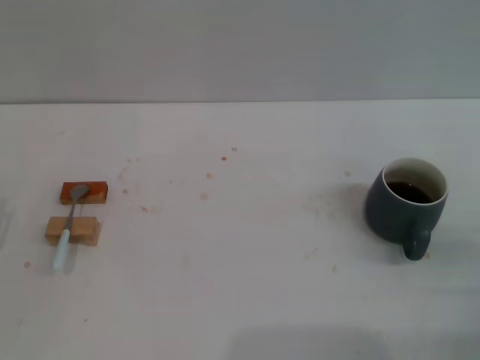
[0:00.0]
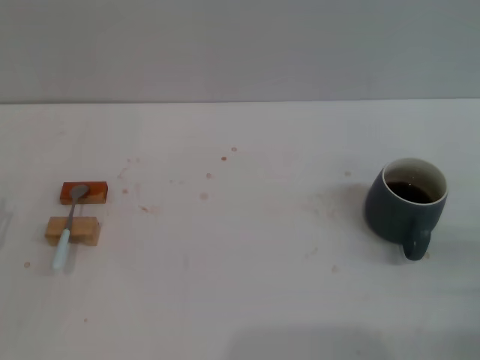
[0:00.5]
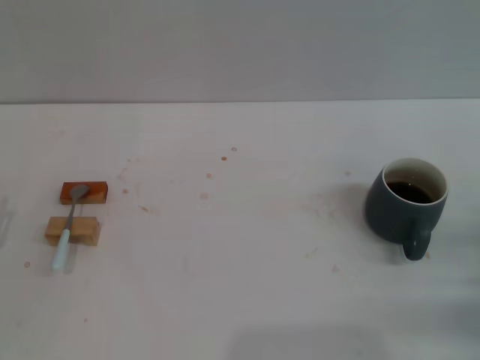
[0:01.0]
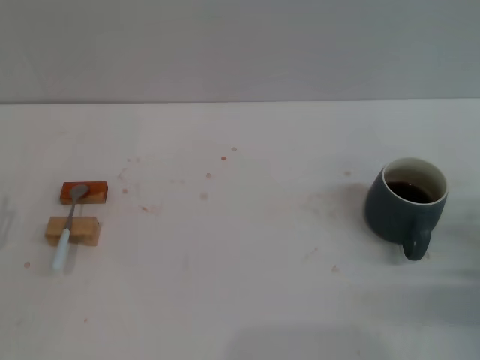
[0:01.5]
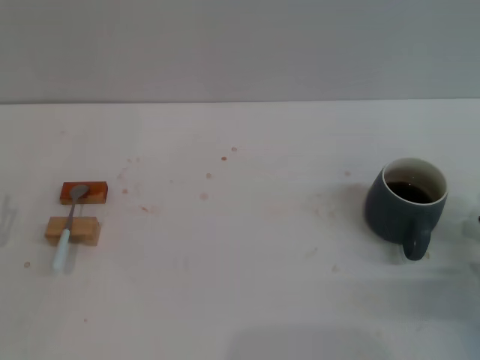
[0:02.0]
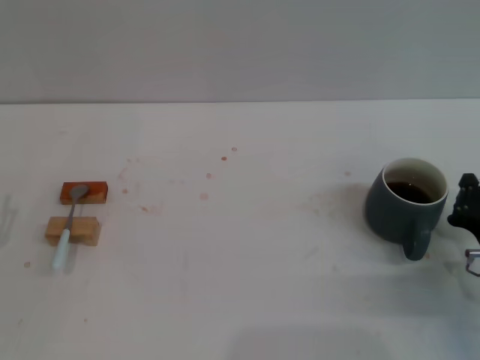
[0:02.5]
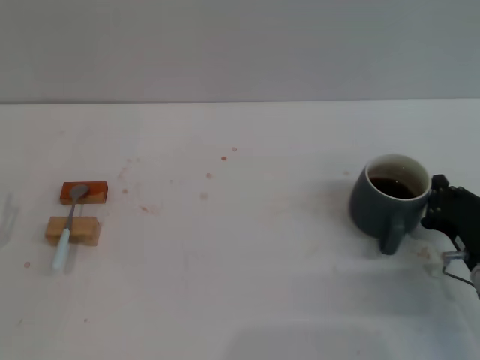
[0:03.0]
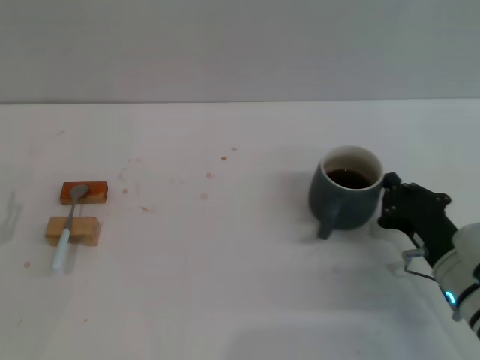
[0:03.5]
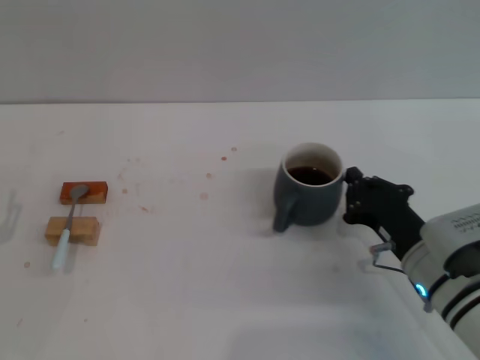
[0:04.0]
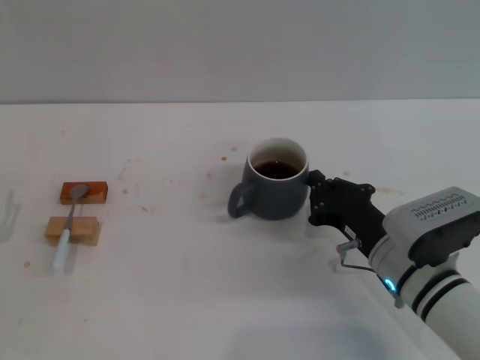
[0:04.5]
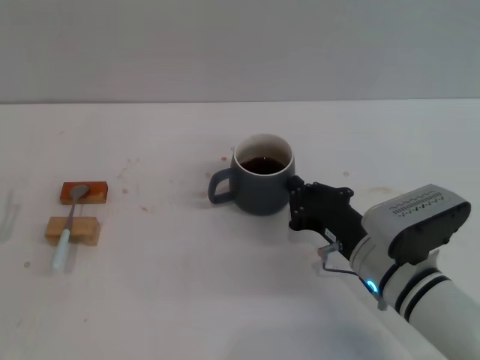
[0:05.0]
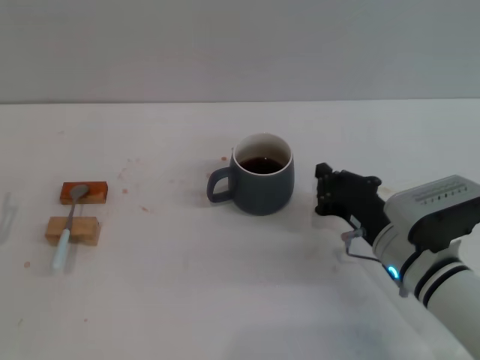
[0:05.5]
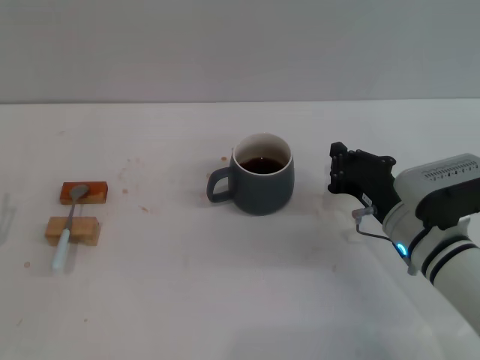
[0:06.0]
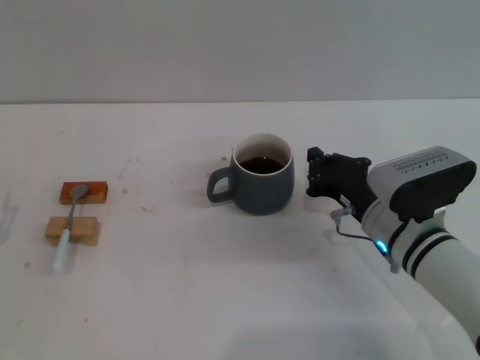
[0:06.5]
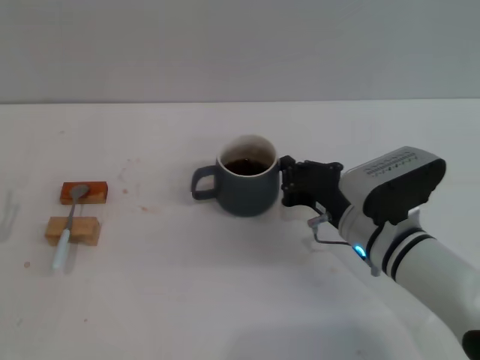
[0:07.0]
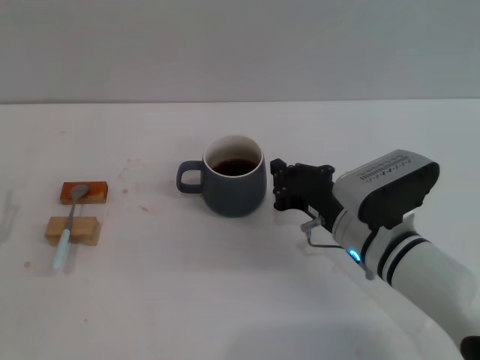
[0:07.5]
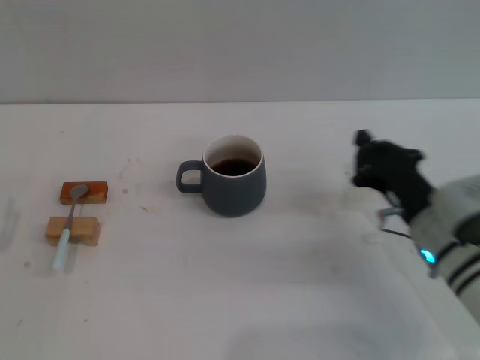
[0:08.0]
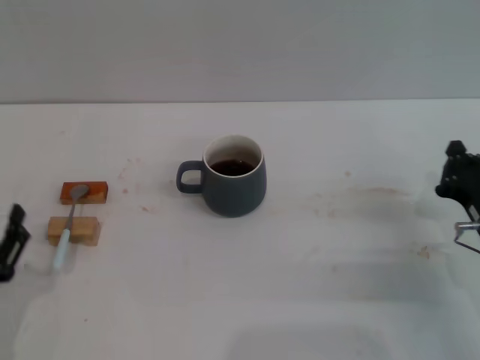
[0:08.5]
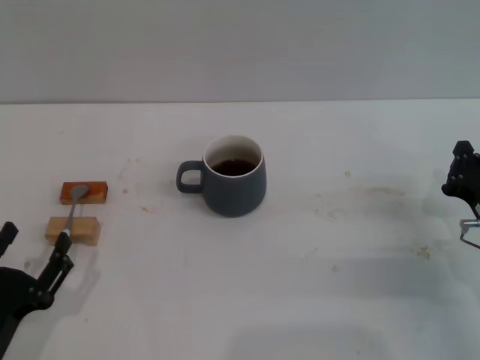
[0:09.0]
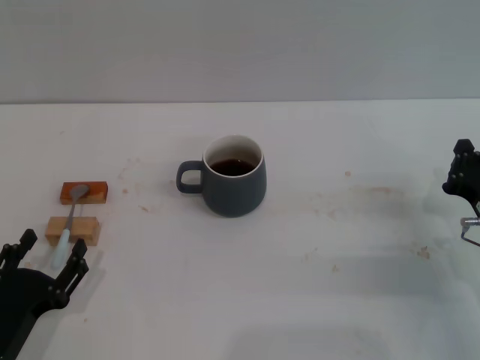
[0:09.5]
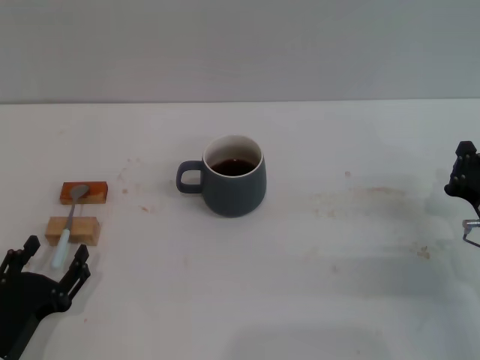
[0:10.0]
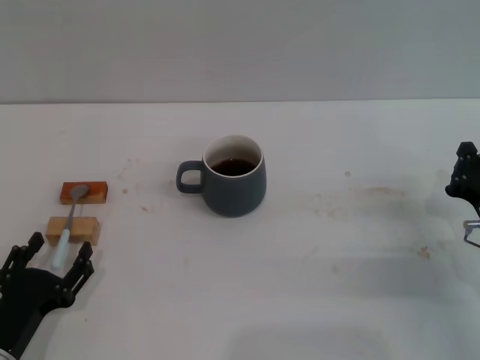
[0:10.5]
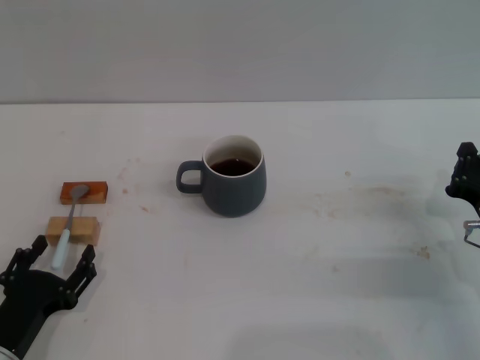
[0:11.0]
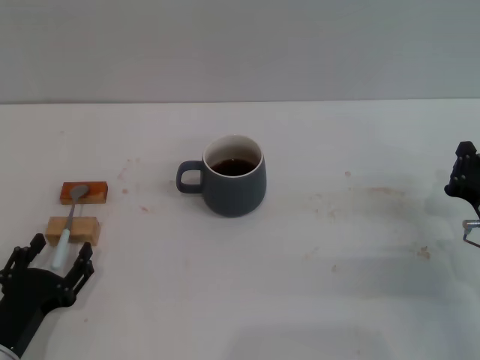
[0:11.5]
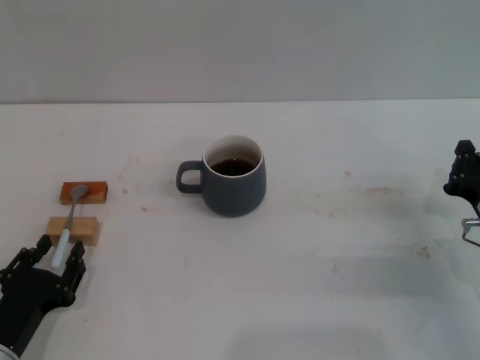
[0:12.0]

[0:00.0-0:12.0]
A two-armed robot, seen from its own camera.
Task of the whole recording: Move the grey cup to the center, lift the blue spoon, stir it three times in the cup, and put the spoon into the cup.
Step, 0:00.0 to 0:07.5: Move the cup with coffee to the center of view with the right gripper.
0:00.0 to 0:02.0: The right gripper ends up approximately 5 cm from where it was.
0:02.0 to 0:04.0: The right gripper heads to the left, covering approximately 10 cm.
0:04.0 to 0:06.0: There are only small adjustments of the grippers.
0:06.0 to 0:08.0: The grippers stay close to where they were, moving slightly.
0:08.0 to 0:10.0: Both grippers travel together to the right, some 5 cm.
0:10.0 to 0:12.0: The left gripper closes.

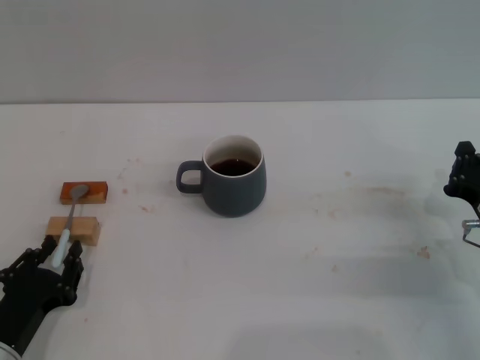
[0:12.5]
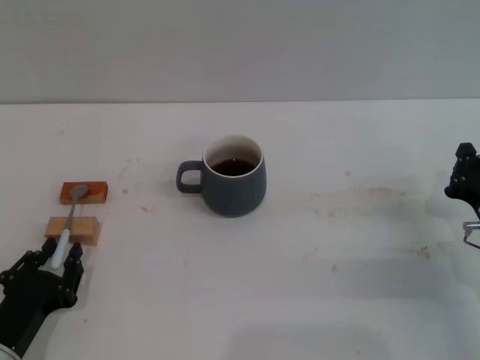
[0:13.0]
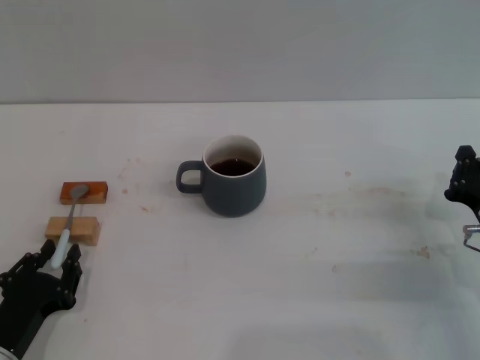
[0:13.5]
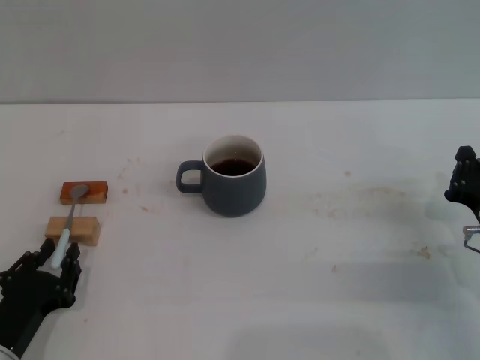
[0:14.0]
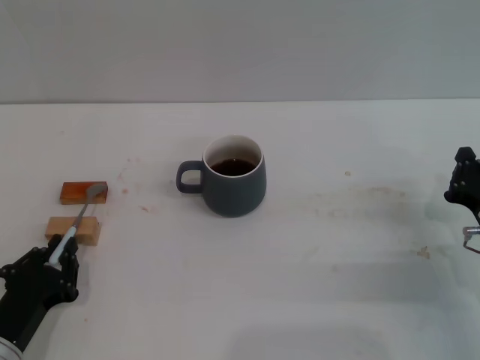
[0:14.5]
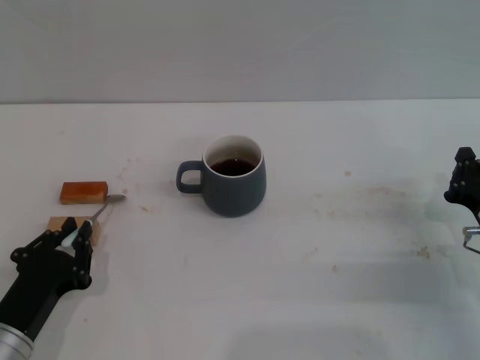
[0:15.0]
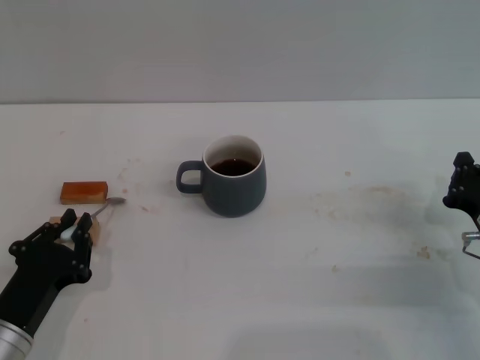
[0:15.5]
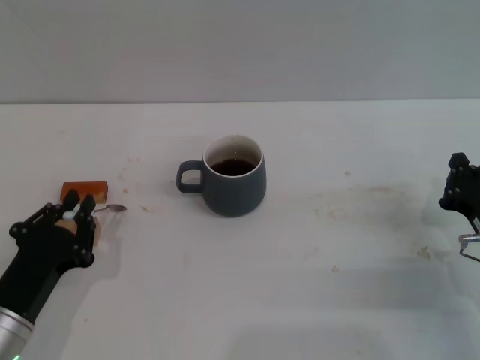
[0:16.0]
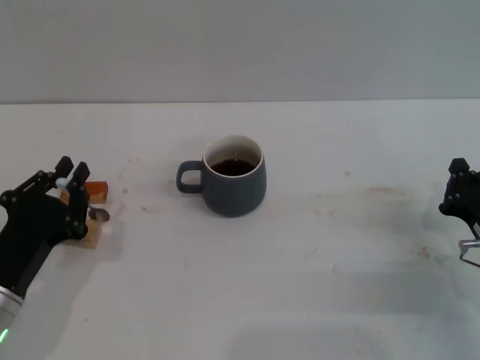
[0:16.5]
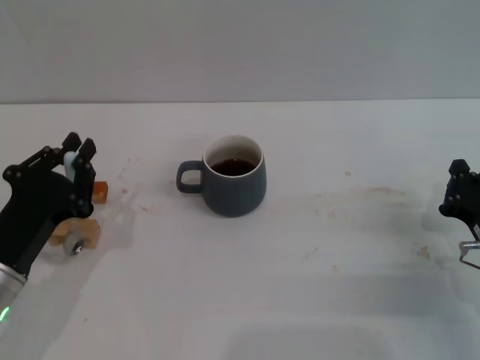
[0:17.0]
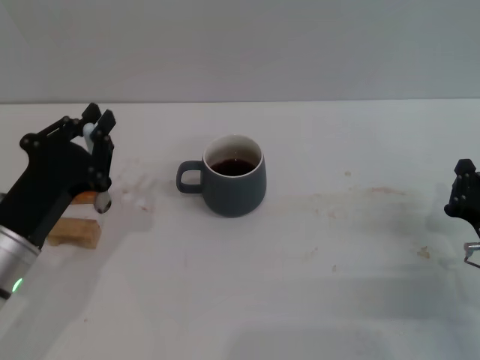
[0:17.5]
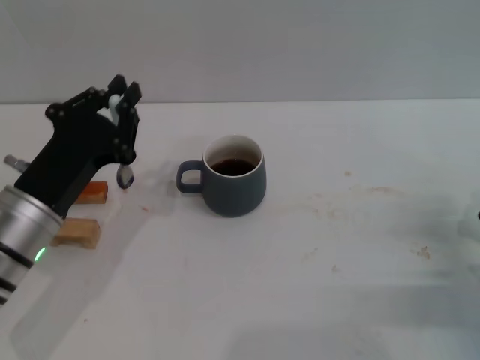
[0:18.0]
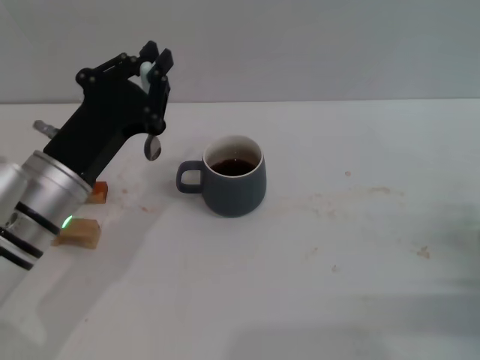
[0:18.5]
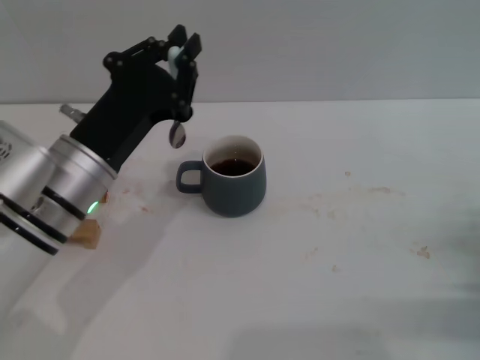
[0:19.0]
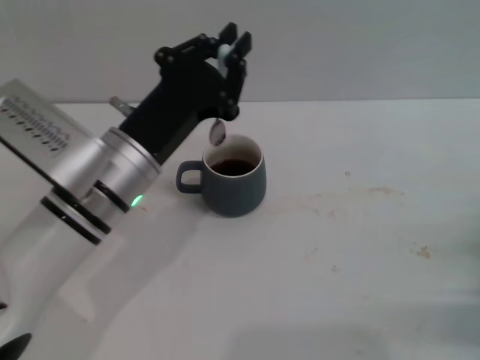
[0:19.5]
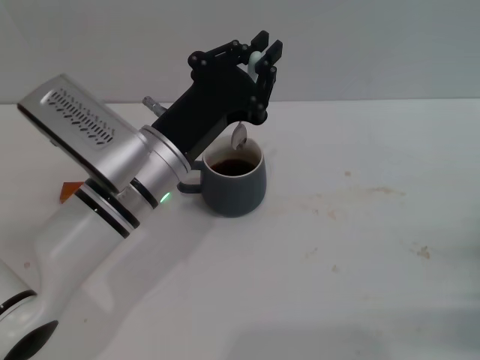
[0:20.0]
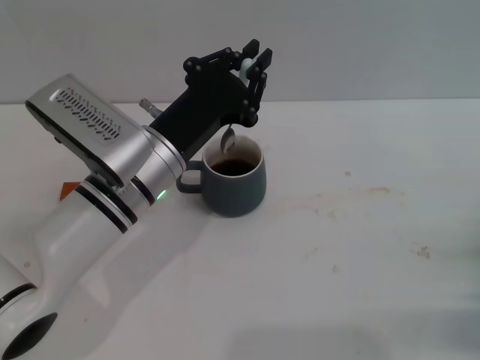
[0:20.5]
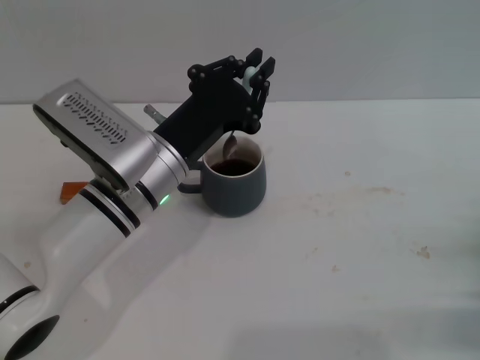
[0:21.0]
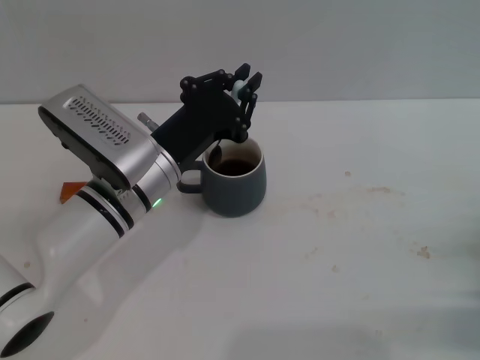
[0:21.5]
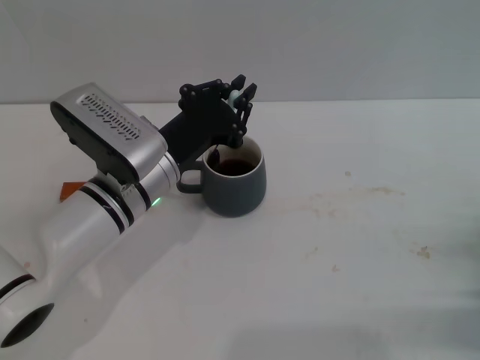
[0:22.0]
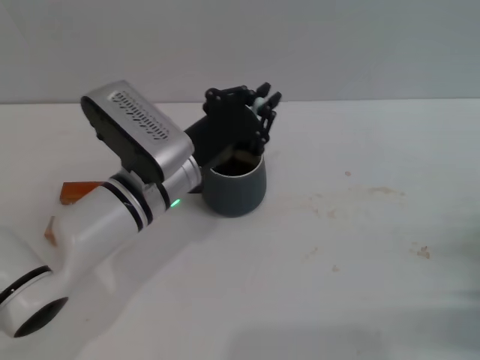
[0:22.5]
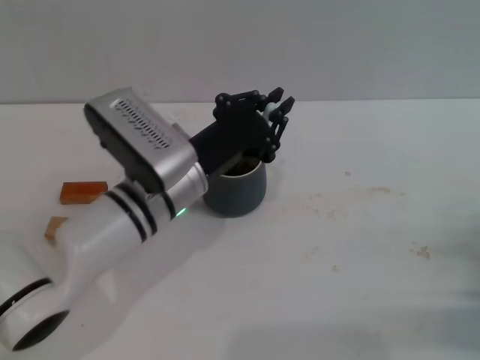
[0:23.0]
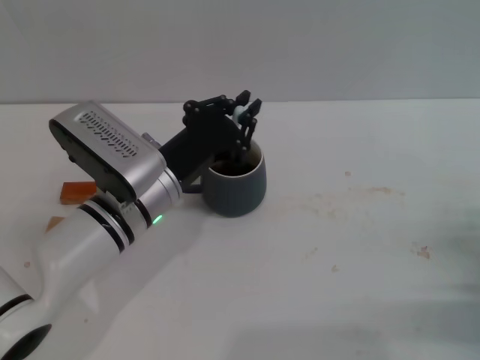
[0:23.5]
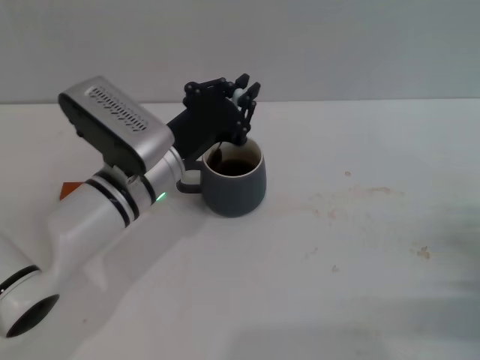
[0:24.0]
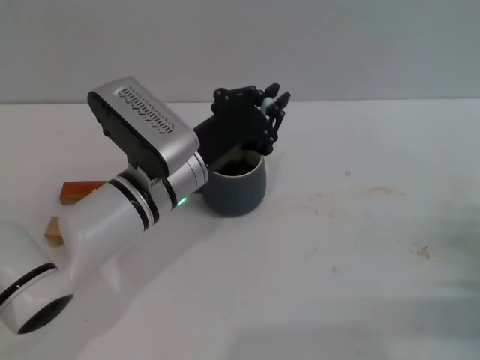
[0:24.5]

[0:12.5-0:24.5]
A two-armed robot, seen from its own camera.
Task of the whole recording: Move the grey cup to the center, lift the blue spoon, stir it three times in the cup, and put the spoon into the cup.
Step, 0:12.5 to 0:17.5: Pick up the spoon with the left gripper.
0:12.5 to 0:14.5: The left gripper closes.
0:14.5 to 0:16.5: The left gripper is displaced upward by approximately 5 cm.
0:16.5 to 0:18.5: The left gripper is displaced upward, forward and to the right by roughly 15 cm; the right gripper moves approximately 5 cm.
0:18.5 to 0:20.5: The left gripper heads to the right, covering approximately 5 cm.
0:20.5 to 0:24.5: There are only small adjustments of the grippers.

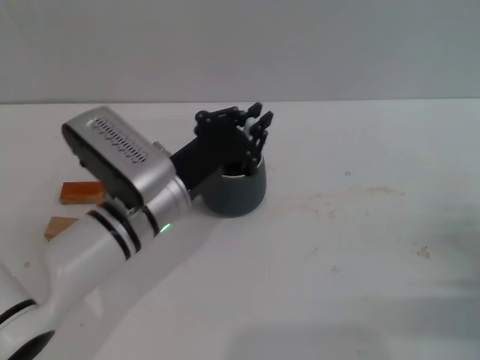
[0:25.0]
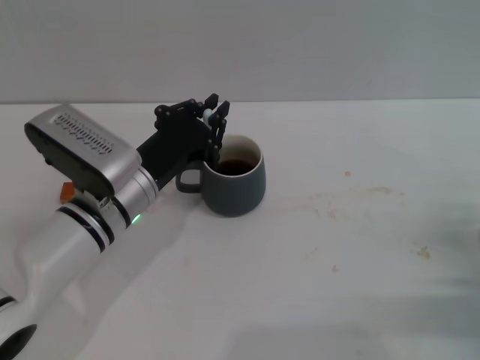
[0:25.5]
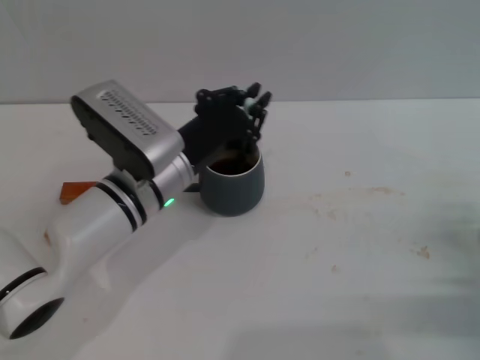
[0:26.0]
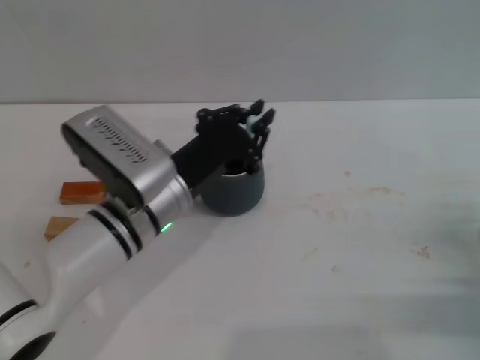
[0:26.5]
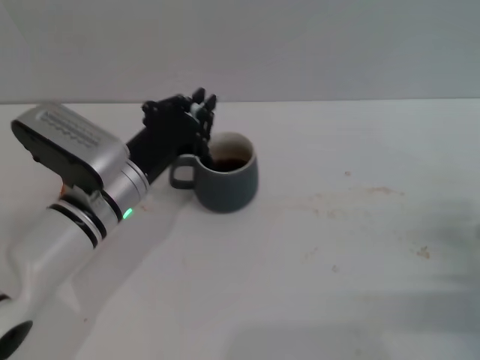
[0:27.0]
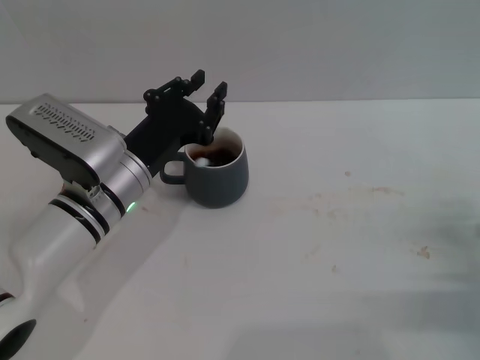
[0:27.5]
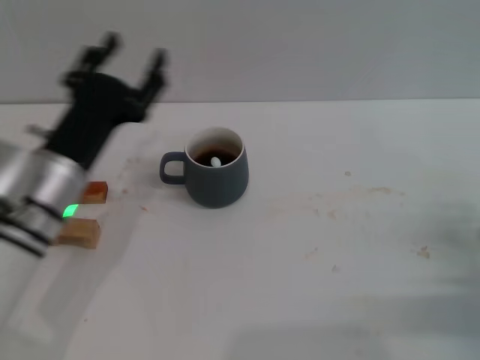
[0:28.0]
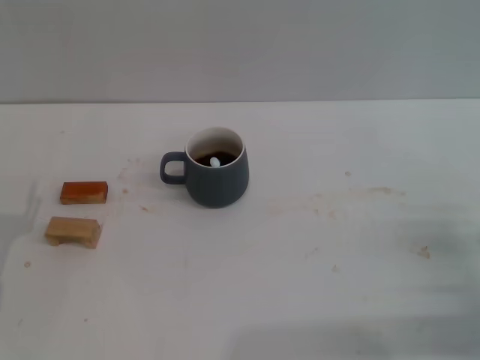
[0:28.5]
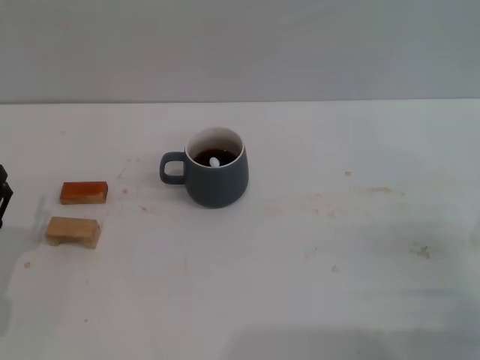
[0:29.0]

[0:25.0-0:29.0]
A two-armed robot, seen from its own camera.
Task of the whole recording: Move the grey cup to the center, lift the blue spoon, stir it three times in the cup, and put the spoon into the cup.
Step, 0:25.0 to 0:27.5: Stir the coffee in the cup with the left gripper.
0:25.0 to 0:27.0: There are only small adjustments of the grippers.
0:27.0 to 0:29.0: The left gripper moves to the left and backward, approximately 20 cm, and opens its fingers.
